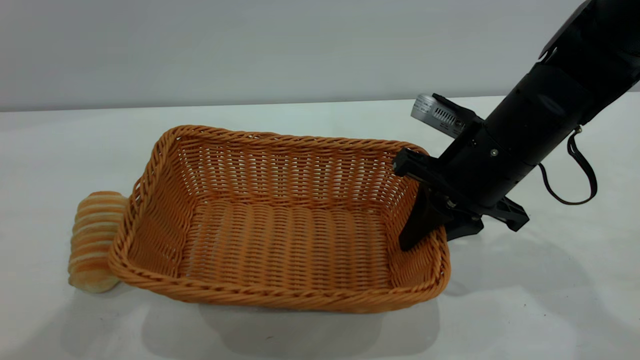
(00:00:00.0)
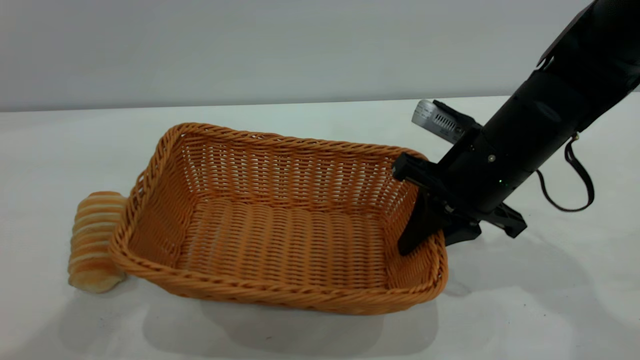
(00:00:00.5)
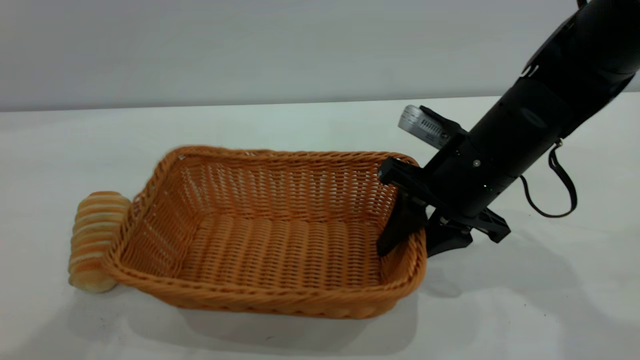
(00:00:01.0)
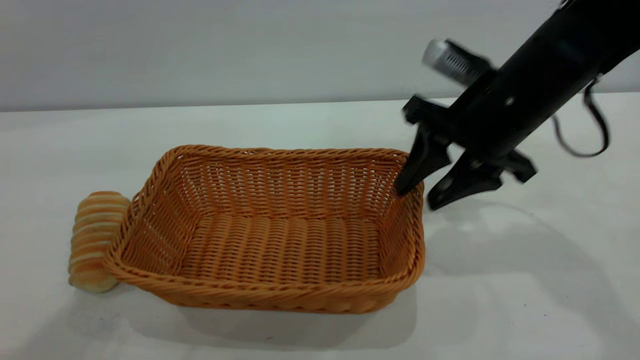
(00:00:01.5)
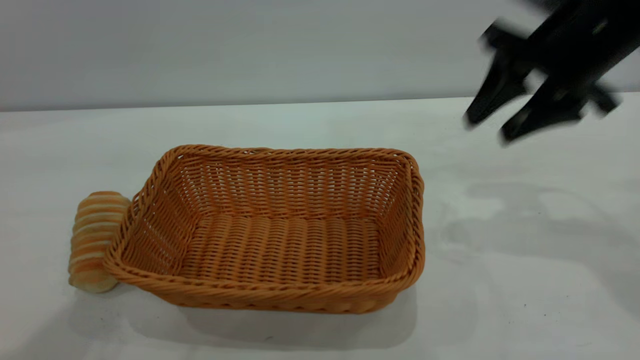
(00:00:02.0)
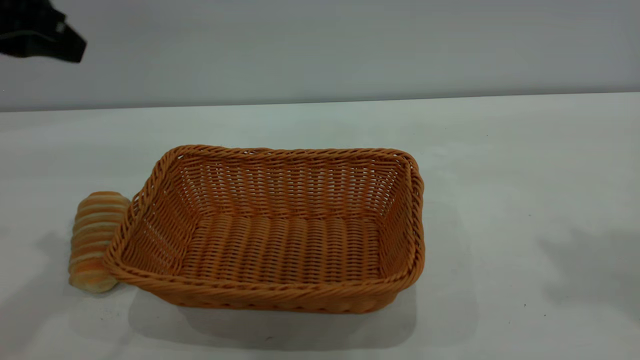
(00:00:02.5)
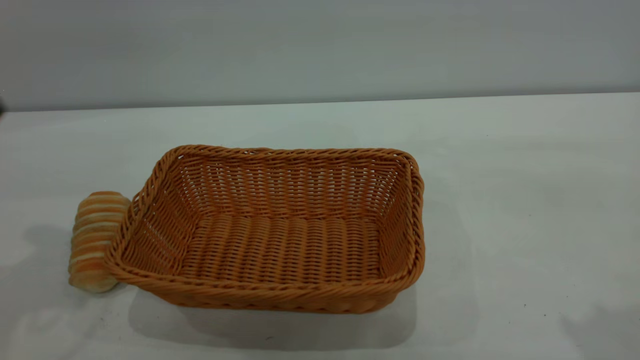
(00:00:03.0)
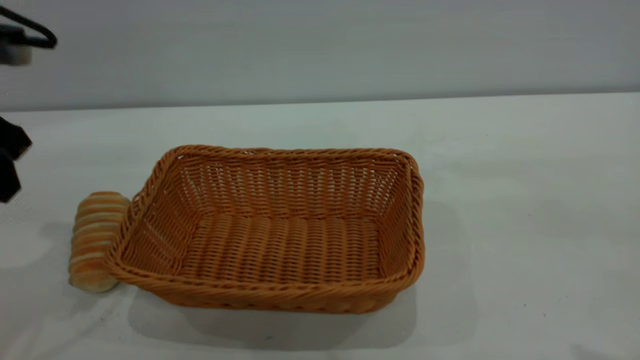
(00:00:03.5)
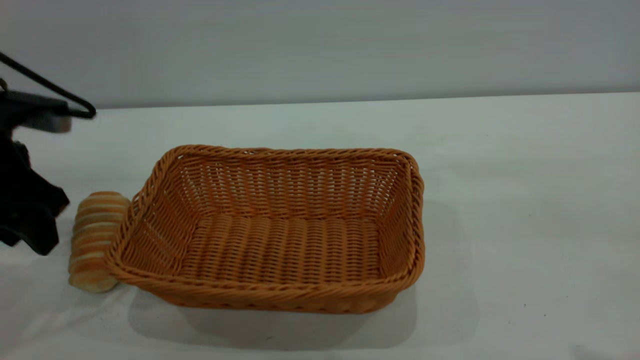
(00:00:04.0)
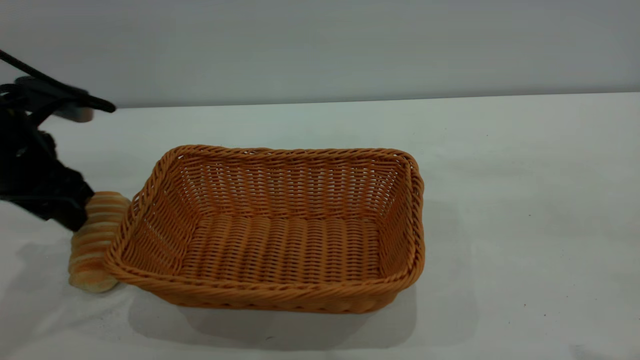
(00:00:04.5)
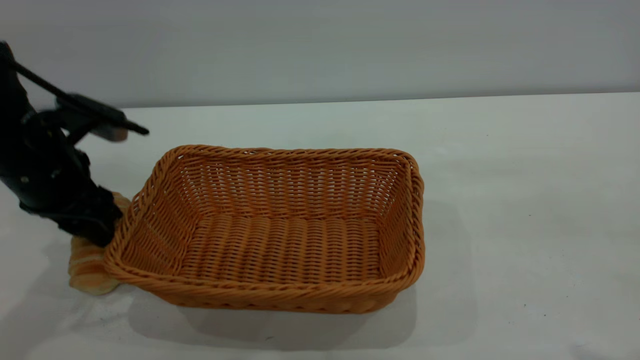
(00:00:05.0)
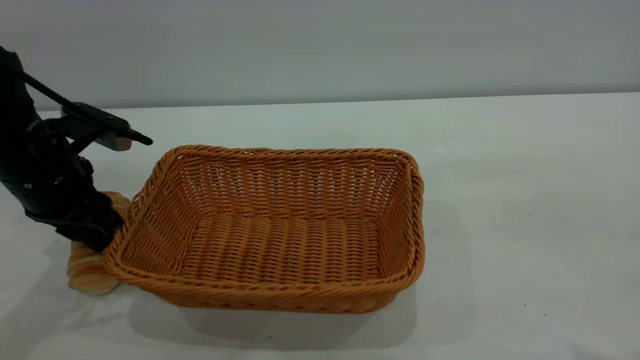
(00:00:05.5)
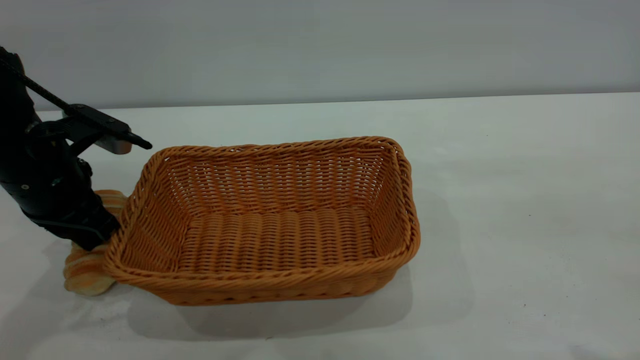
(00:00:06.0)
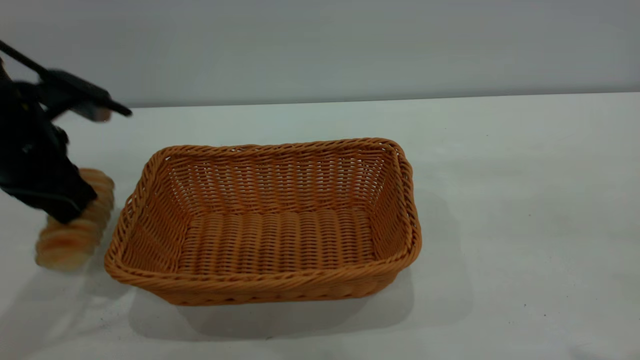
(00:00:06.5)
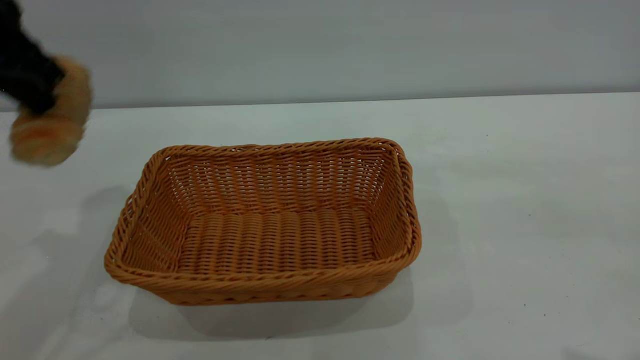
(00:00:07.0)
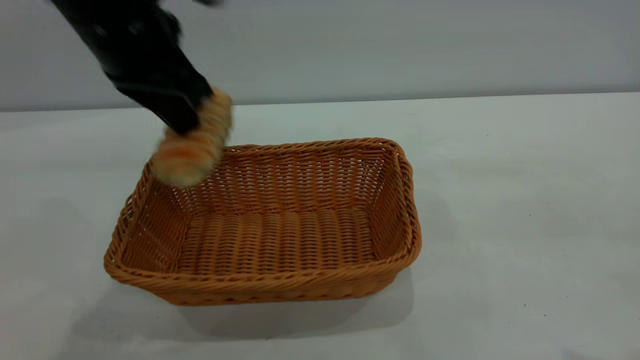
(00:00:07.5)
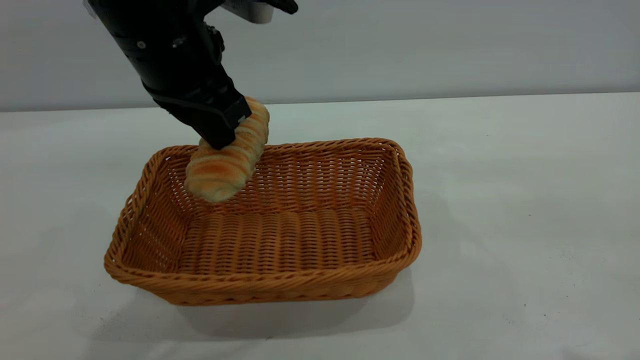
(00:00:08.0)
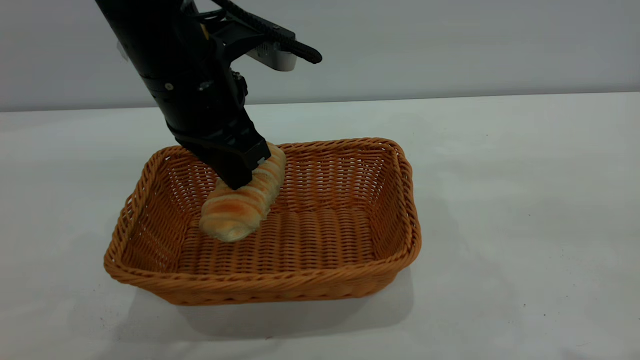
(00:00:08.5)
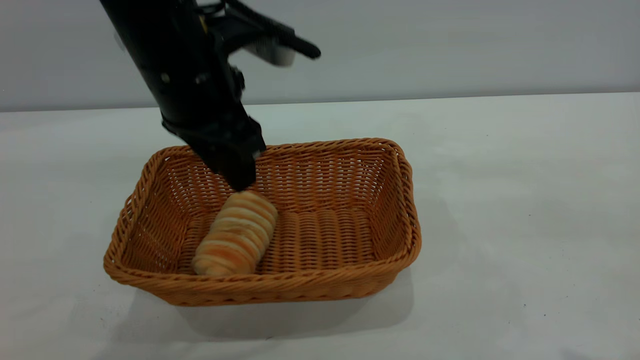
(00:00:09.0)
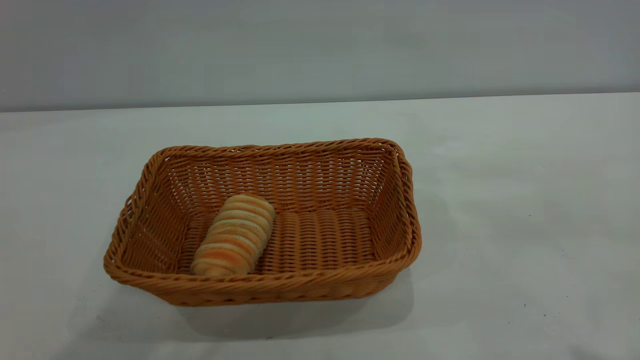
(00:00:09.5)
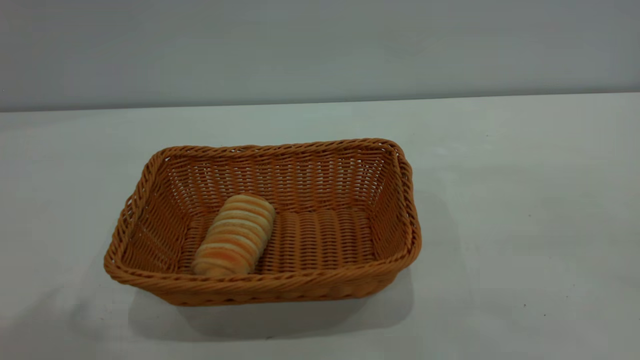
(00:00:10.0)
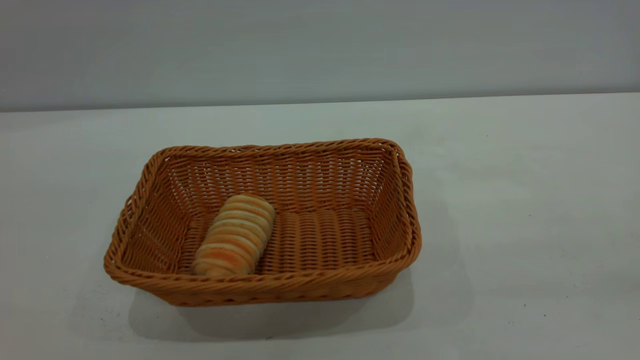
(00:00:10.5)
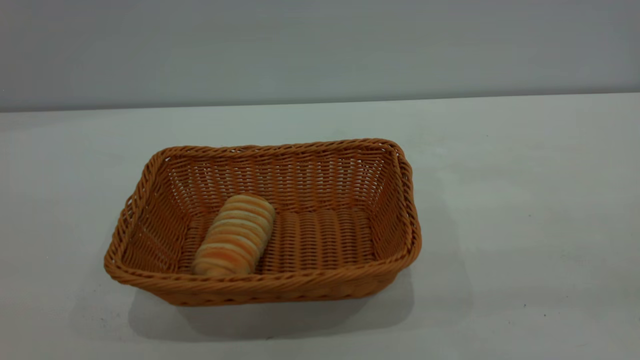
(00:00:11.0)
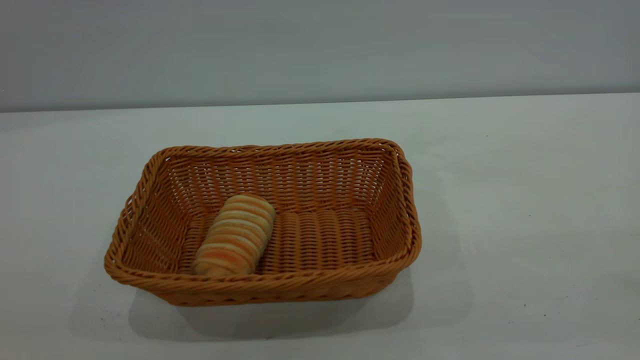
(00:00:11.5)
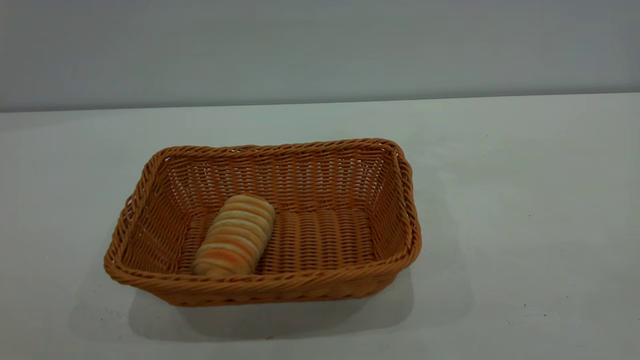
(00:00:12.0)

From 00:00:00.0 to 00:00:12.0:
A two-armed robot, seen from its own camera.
Task of the whole recording: One hand grasps the yellow basket and places it in the middle of the table, while the other hand picks up the long bread and puts it into the yellow basket.
Step, from 00:00:07.0 to 00:00:09.0: place the bread into the basket.
From 00:00:00.0 to 00:00:02.0: The right gripper moves upward and to the right, some 15 cm, and opens its fingers.
From 00:00:02.0 to 00:00:04.0: The right gripper moves backward and upward, about 25 cm; the left gripper shifts roughly 20 cm downward and to the left, and opens up.
From 00:00:04.0 to 00:00:06.0: The left gripper closes up.
From 00:00:06.0 to 00:00:08.0: The left gripper shifts about 20 cm to the right and upward.
From 00:00:08.0 to 00:00:10.0: The right gripper moves about 5 cm, while the left gripper heads upward, backward and to the left, covering roughly 30 cm, and opens up.

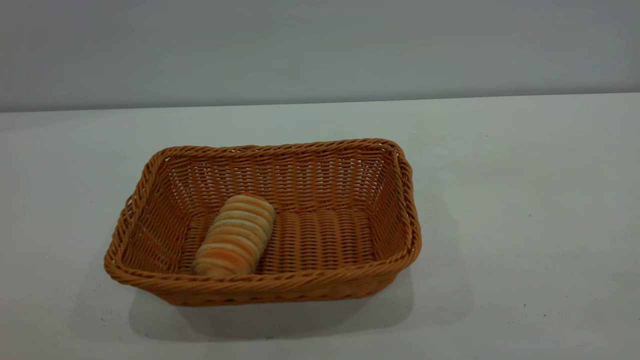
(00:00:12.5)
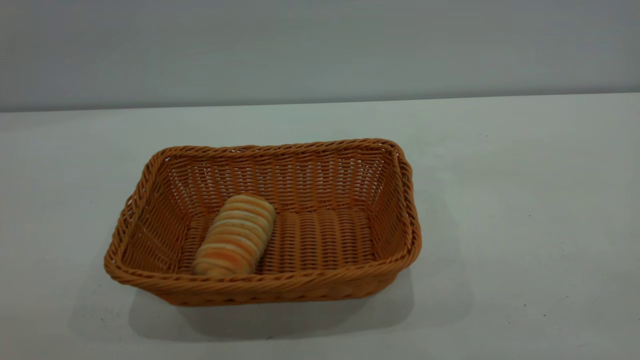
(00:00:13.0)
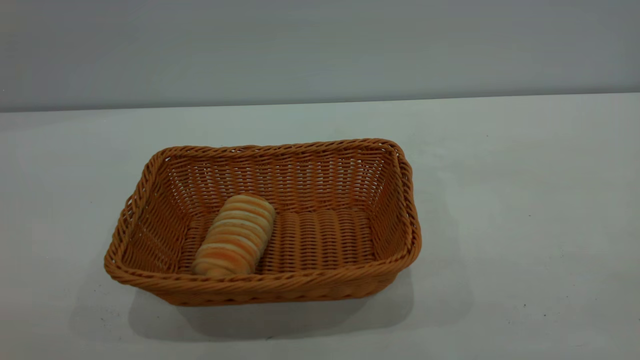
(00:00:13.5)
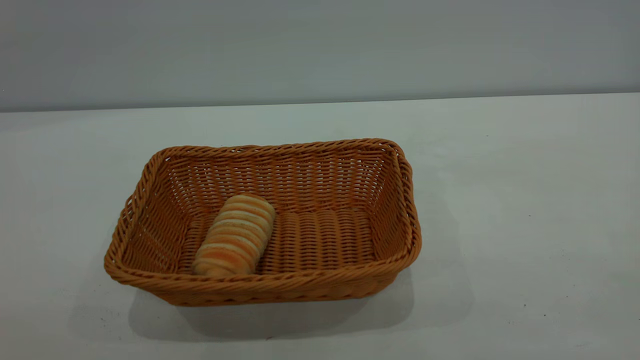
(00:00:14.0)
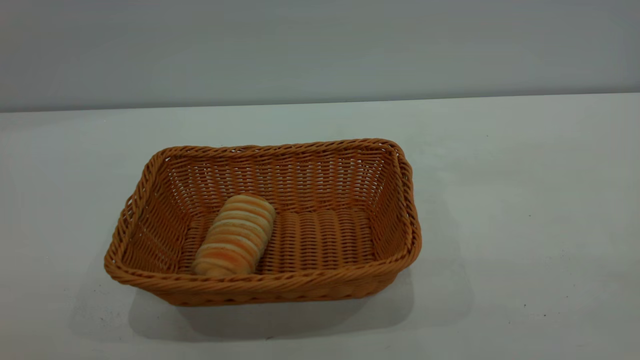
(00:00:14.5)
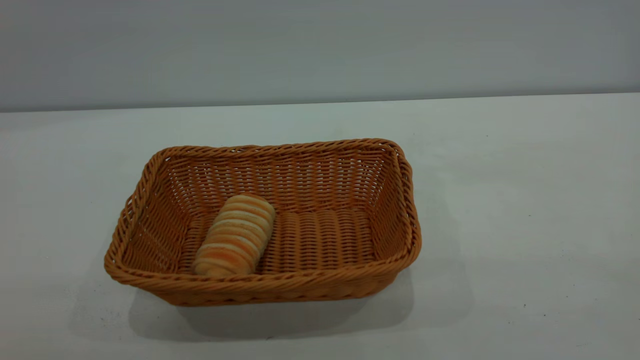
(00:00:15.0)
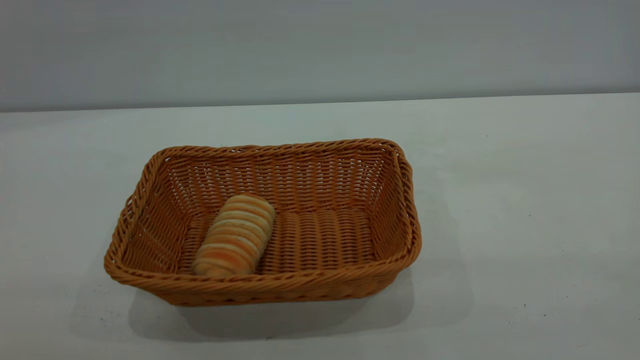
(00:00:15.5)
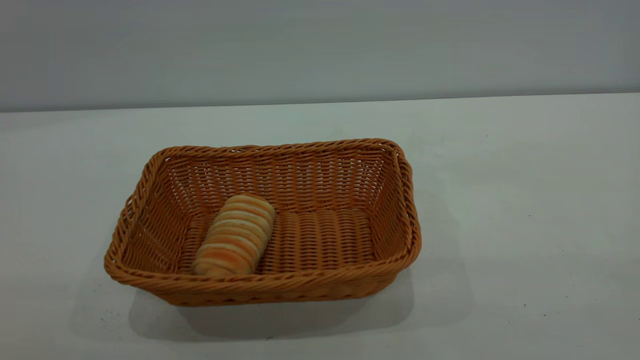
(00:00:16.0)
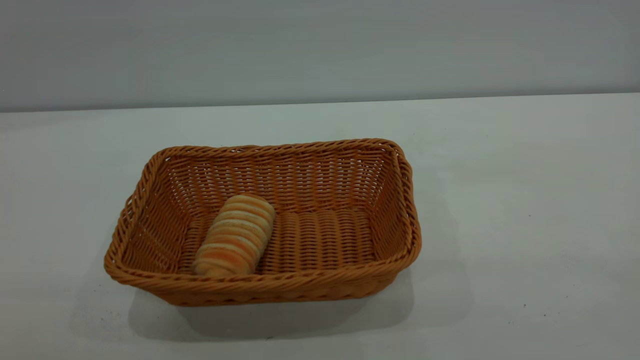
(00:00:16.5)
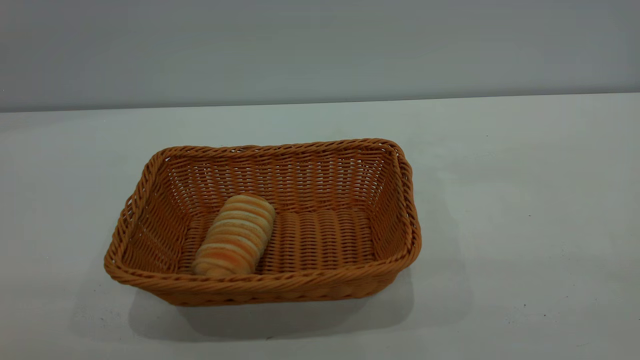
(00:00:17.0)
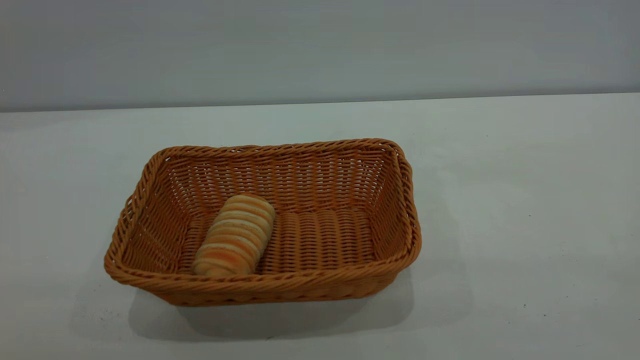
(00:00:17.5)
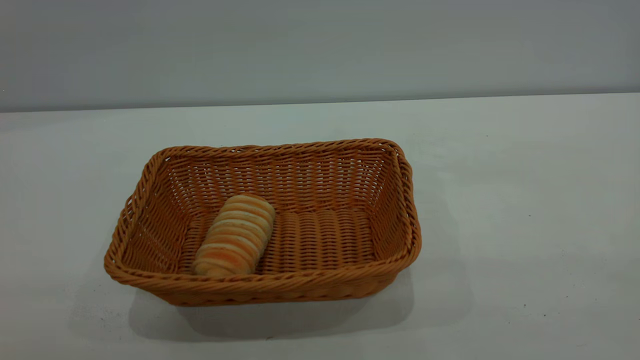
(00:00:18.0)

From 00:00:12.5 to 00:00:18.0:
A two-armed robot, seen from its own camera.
Task of the whole recording: One hand grasps the yellow basket and places it in the middle of the table, while the other hand picks up the long bread and puts it into the yellow basket.
From 00:00:16.0 to 00:00:18.0: The two grippers keep their place.

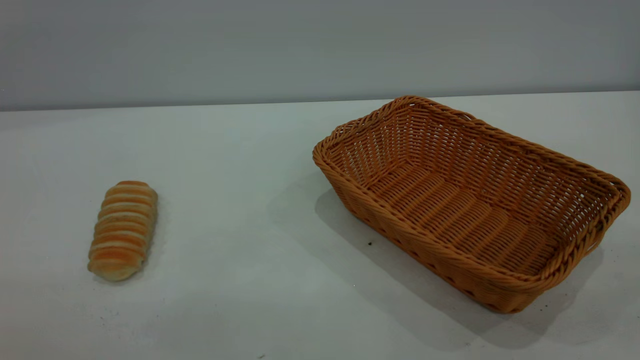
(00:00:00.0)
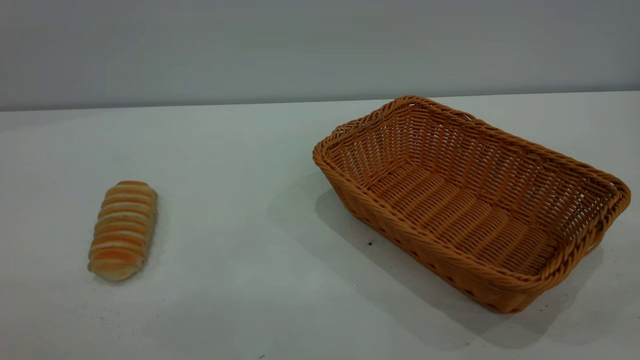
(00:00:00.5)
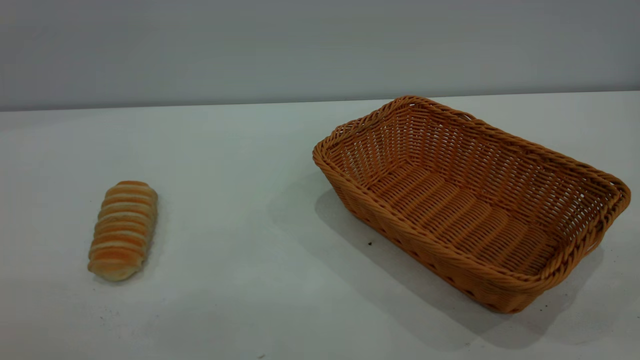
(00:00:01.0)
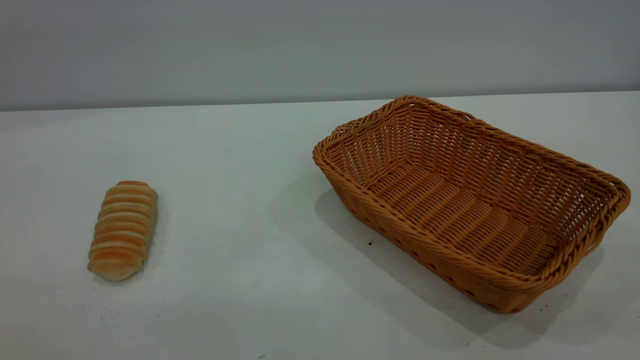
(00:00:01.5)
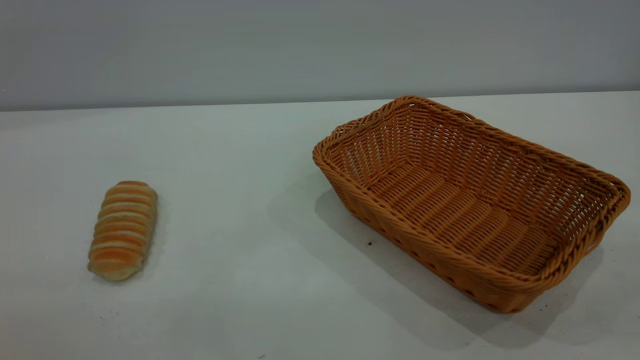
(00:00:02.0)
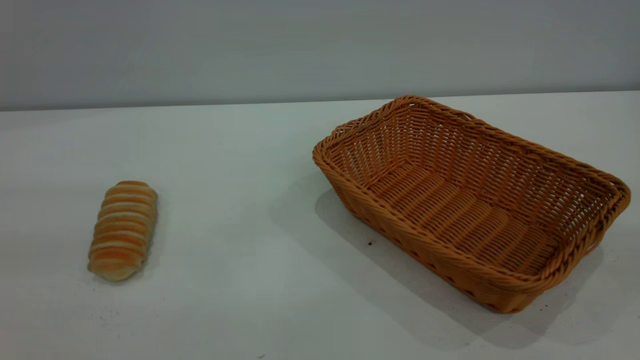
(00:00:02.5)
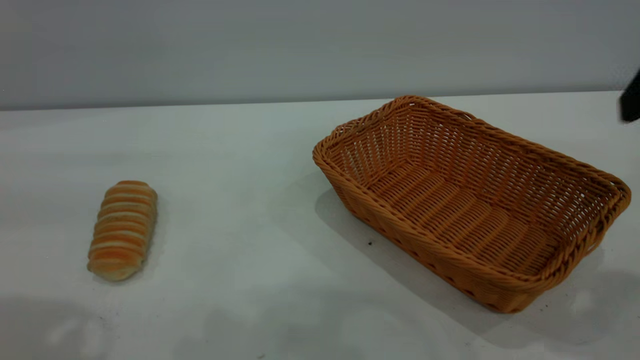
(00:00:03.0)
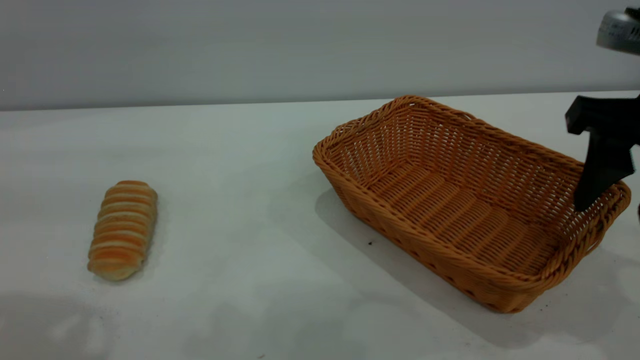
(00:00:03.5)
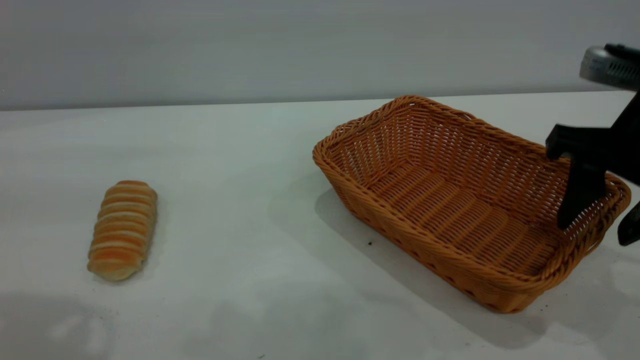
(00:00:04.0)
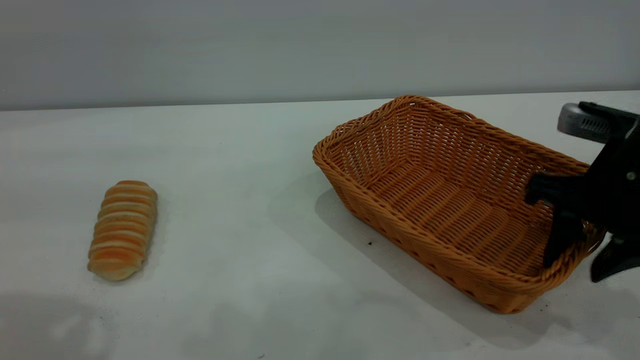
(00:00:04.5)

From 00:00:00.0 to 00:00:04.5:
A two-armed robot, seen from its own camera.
Task of the whole recording: One hand grasps the yellow basket and places it in the middle of the table, while the other hand picks up the long bread and puts it into the yellow basket.
From 00:00:02.0 to 00:00:04.5: The right gripper travels forward and downward by approximately 35 cm.
